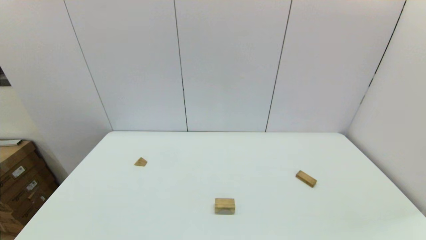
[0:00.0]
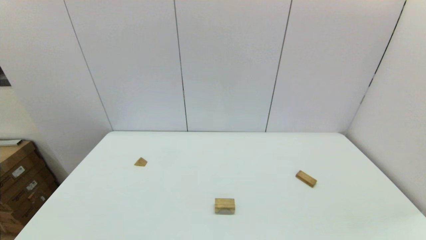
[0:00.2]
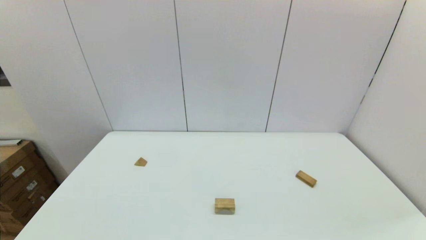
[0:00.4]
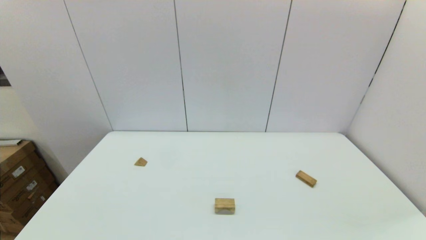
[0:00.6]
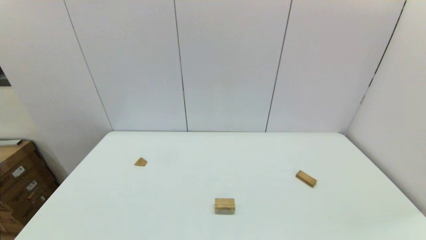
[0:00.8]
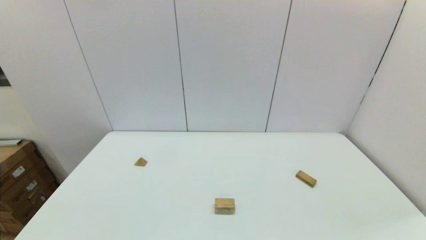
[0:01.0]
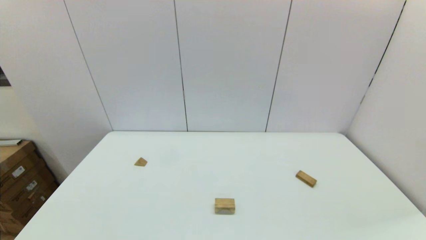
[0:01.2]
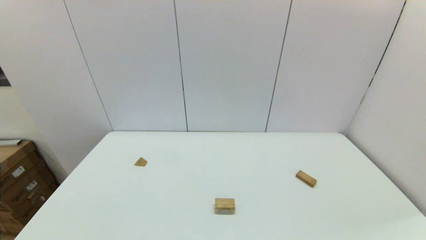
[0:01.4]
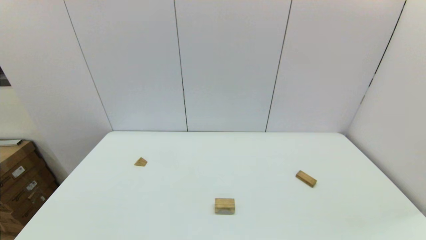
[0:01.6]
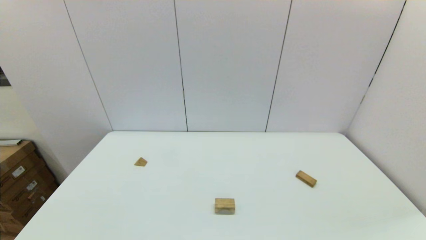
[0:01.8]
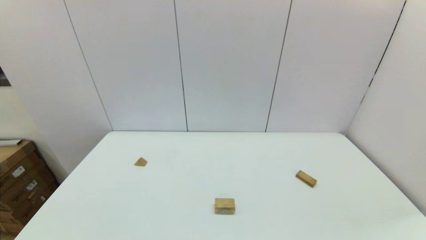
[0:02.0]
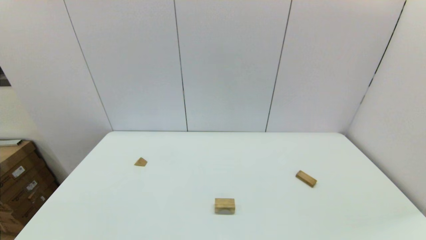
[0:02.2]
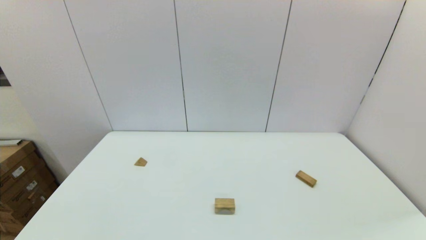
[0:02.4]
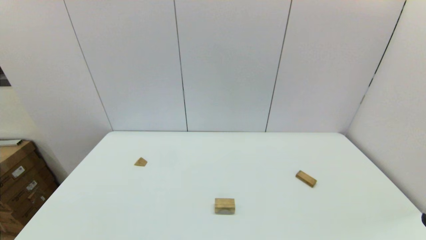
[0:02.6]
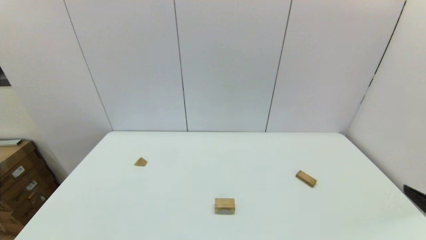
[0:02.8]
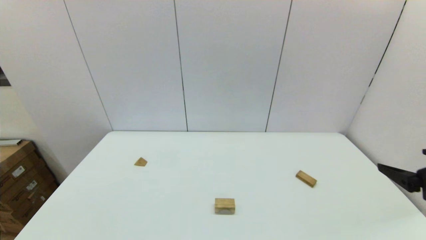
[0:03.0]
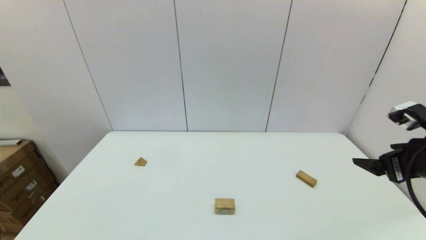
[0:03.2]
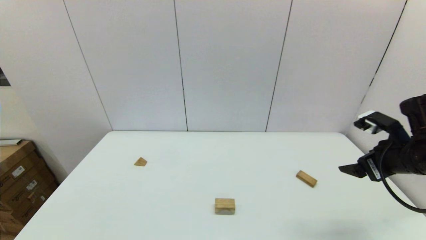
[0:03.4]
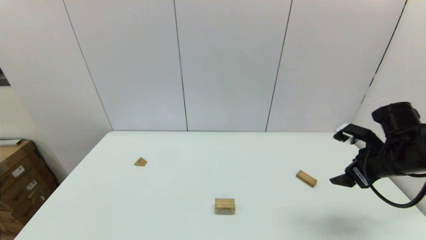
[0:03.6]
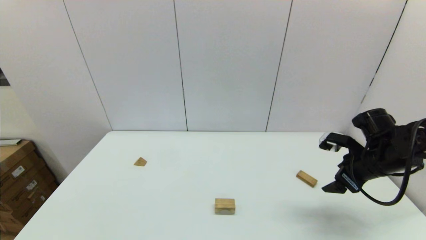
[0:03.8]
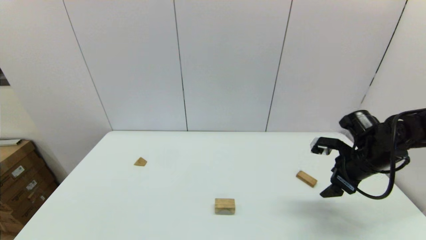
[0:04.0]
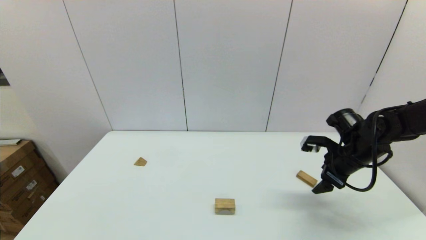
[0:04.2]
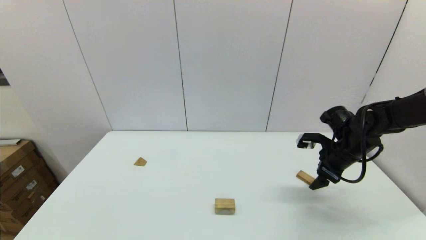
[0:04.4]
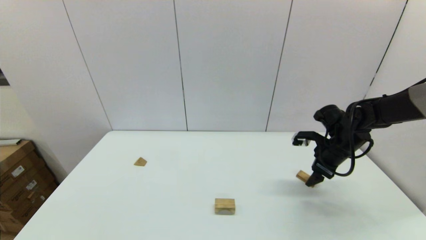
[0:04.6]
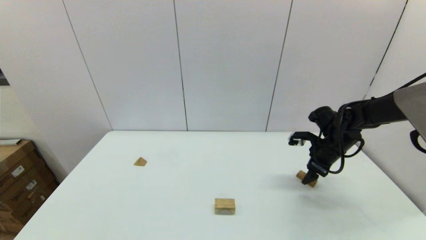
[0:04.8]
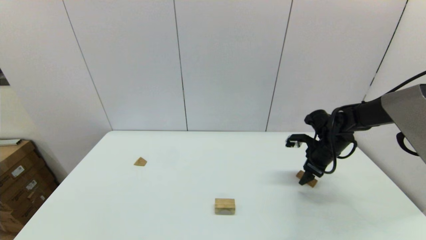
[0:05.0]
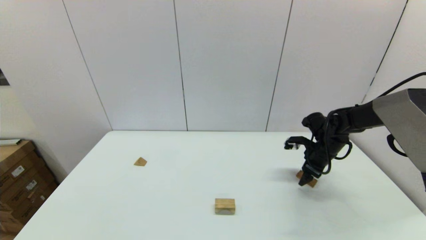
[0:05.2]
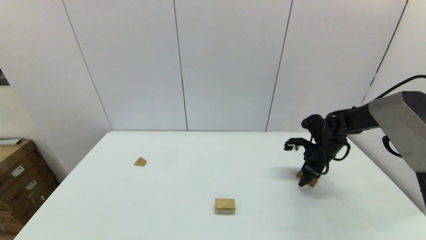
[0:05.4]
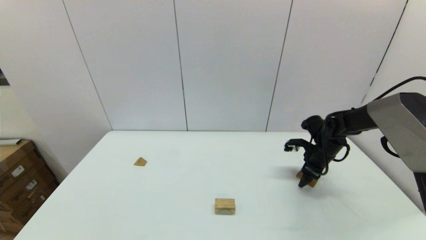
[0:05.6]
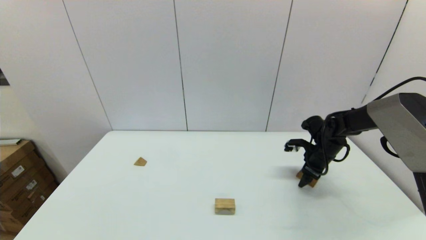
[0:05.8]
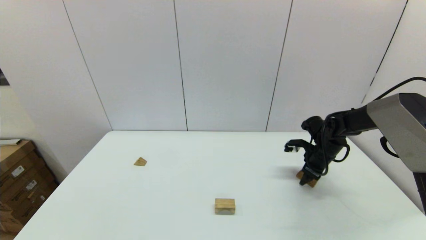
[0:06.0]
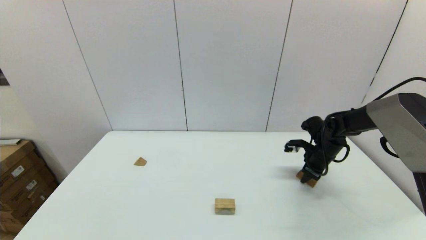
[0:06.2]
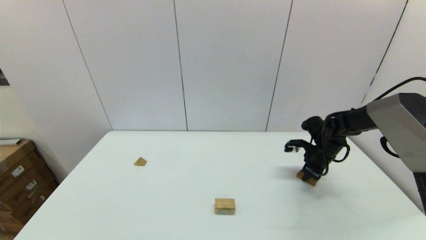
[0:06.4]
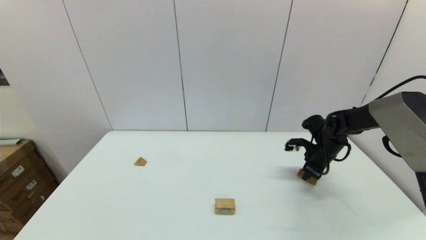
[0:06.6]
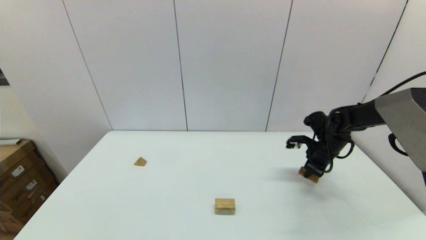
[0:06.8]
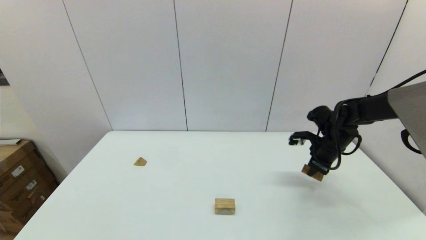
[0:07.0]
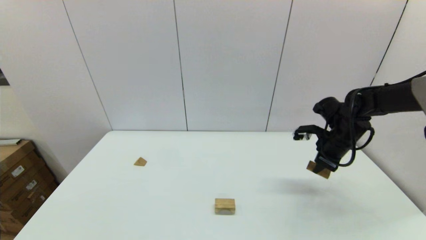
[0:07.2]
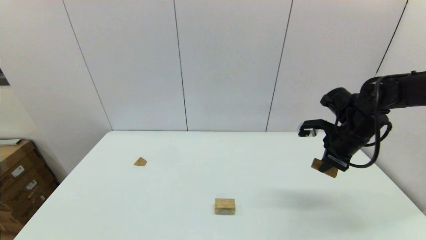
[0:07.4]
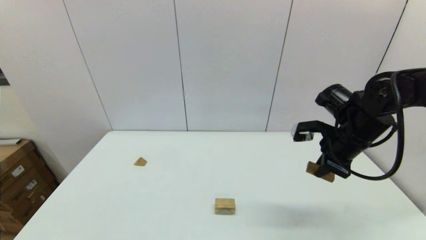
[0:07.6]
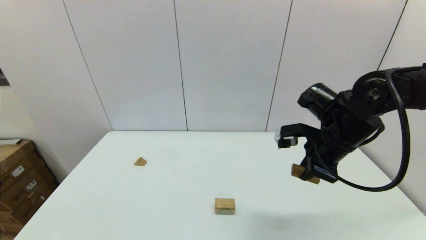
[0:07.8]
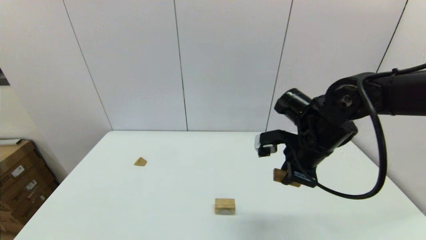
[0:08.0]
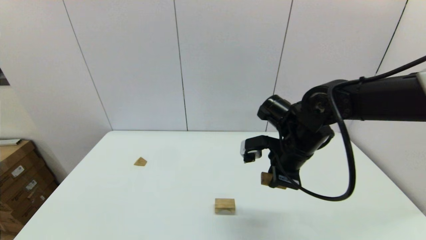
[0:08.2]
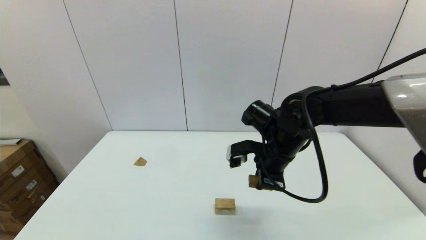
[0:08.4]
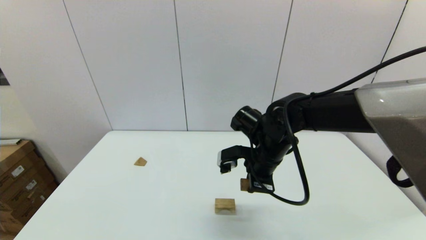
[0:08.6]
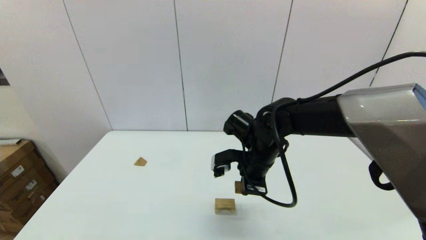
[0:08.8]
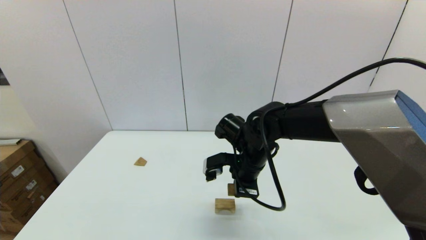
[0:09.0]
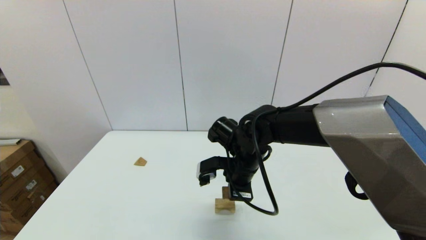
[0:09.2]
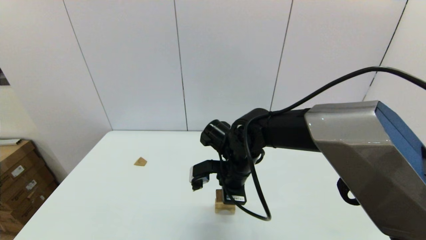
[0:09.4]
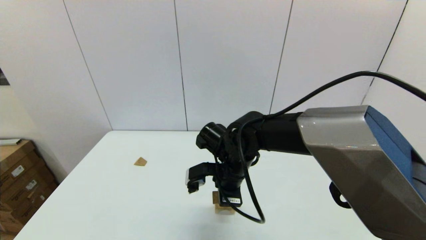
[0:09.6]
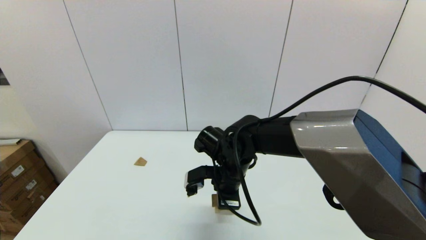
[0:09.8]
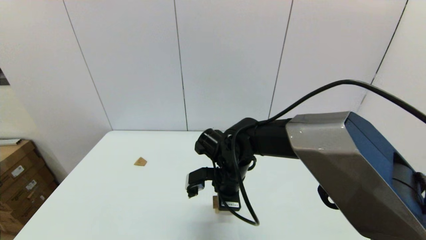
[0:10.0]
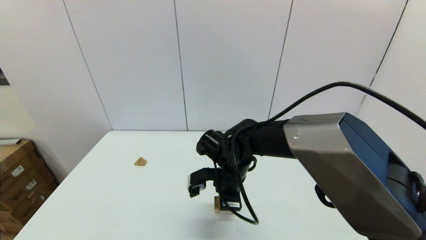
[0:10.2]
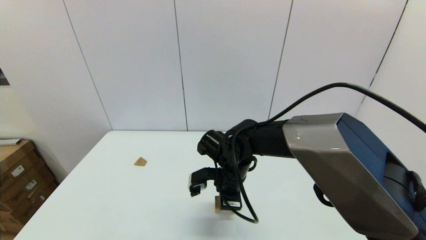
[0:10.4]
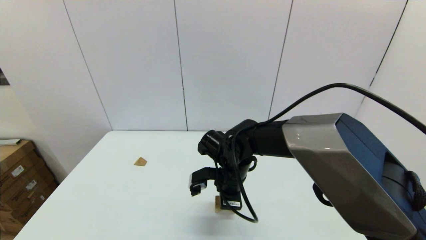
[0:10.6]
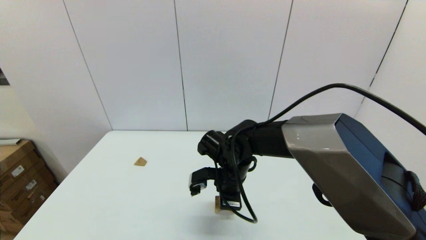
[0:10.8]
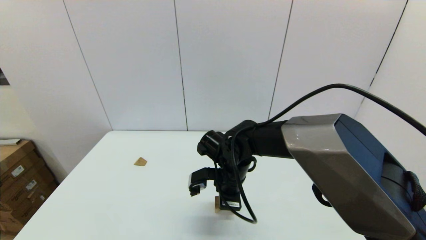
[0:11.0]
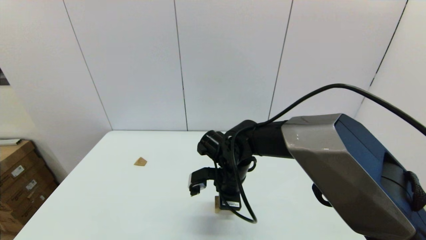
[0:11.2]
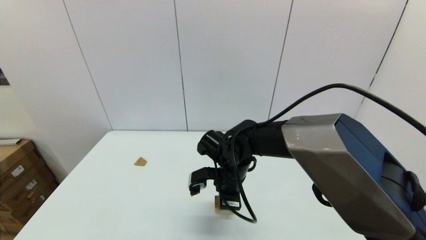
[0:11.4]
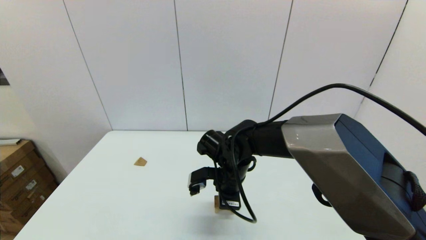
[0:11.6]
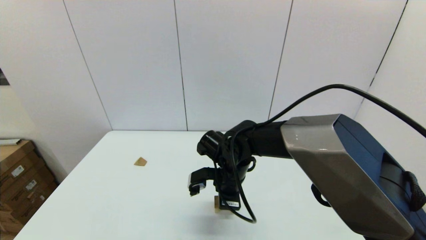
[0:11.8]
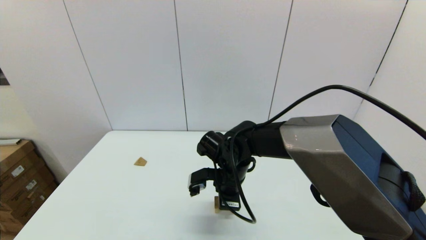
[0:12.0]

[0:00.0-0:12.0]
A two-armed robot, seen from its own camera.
Task of the whole recording: place the arched building blocks in the center of the table, set up the rectangular building blocks, and then set up the triangular building blocks.
Step, 0:00.0 to 0:06.2: Grasp the box-shaped block with the right gripper.
0:00.0 to 0:01.6: Both grippers stay about where they are.
0:01.6 to 0:03.0: The right gripper heads forward and upward, covering roughly 20 cm.
0:03.0 to 0:04.4: The right gripper shifts some 25 cm forward and downward.
0:04.4 to 0:06.0: The right gripper heads forward and downward, covering about 10 cm, and closes.
0:06.0 to 0:07.6: The right gripper moves upward and backward, about 20 cm, and closes up.
0:07.6 to 0:09.0: The right gripper moves to the left, some 20 cm.
0:09.0 to 0:10.4: The right gripper shifts by some 5 cm.
0:10.4 to 0:12.0: The two grippers keep their place.

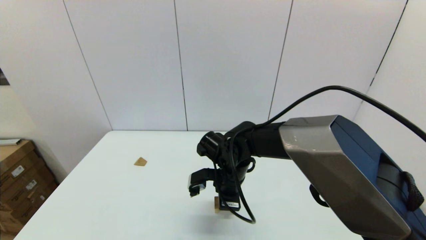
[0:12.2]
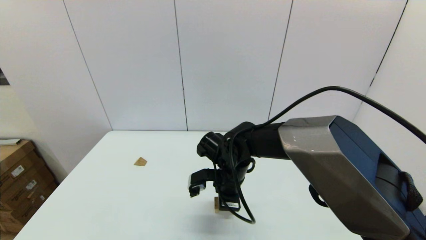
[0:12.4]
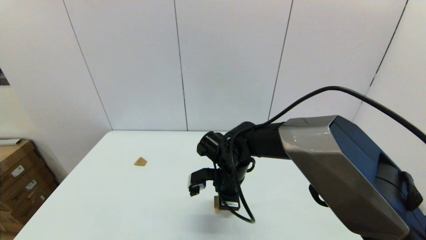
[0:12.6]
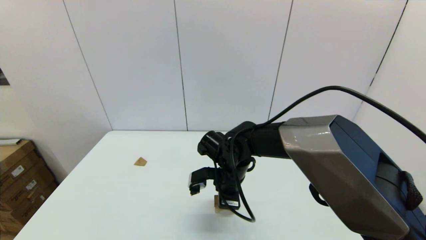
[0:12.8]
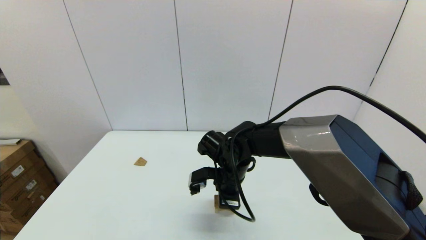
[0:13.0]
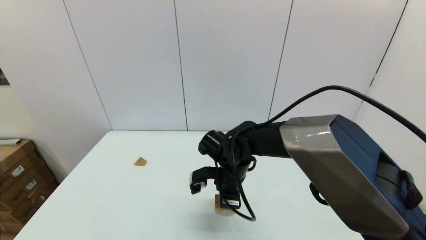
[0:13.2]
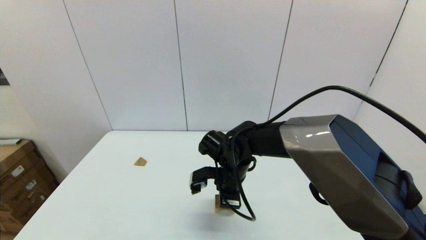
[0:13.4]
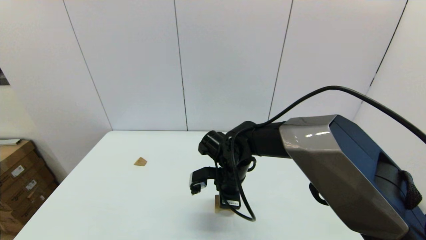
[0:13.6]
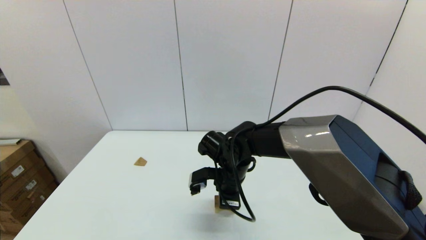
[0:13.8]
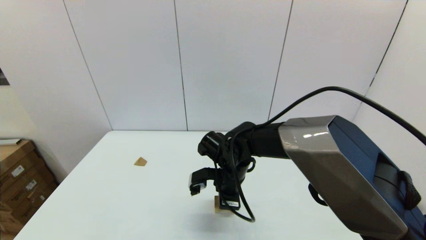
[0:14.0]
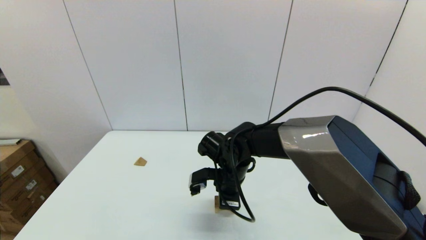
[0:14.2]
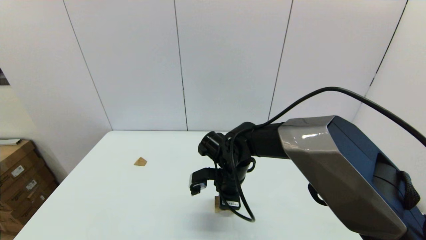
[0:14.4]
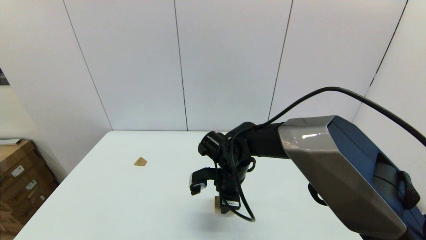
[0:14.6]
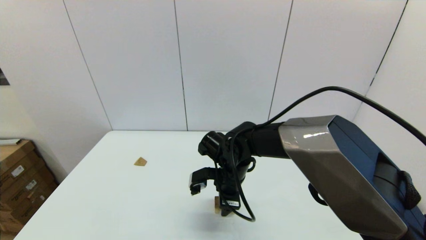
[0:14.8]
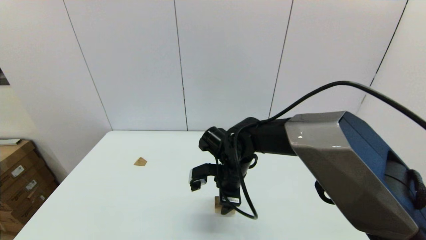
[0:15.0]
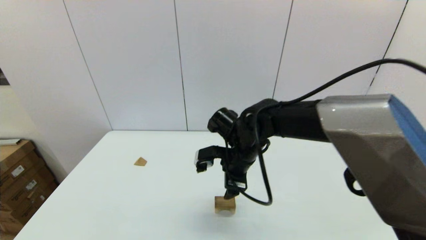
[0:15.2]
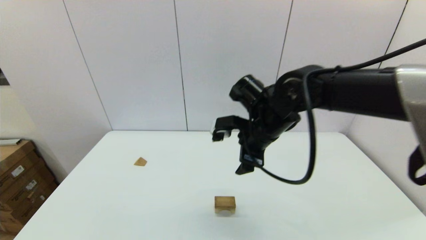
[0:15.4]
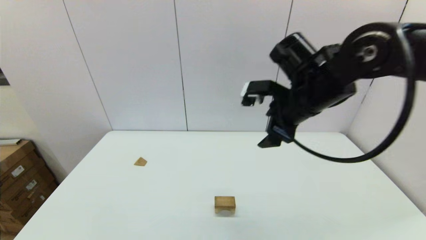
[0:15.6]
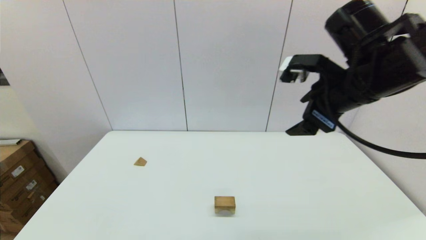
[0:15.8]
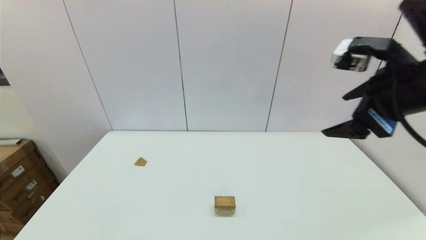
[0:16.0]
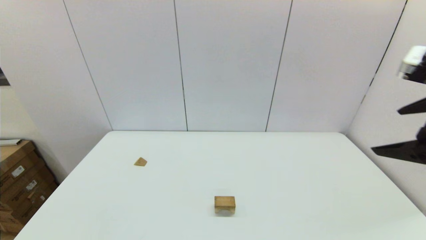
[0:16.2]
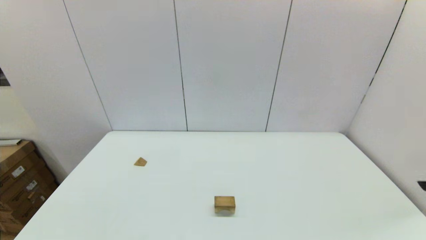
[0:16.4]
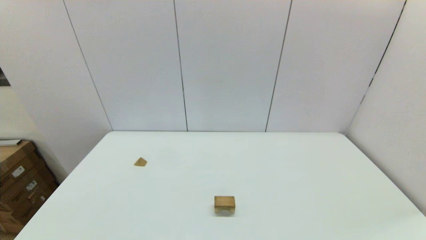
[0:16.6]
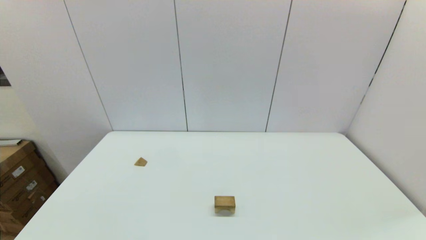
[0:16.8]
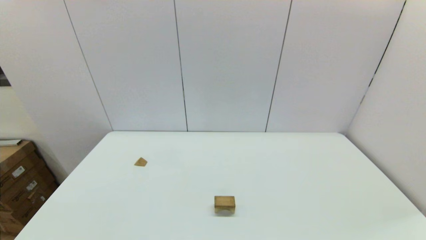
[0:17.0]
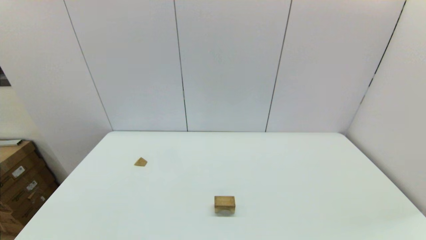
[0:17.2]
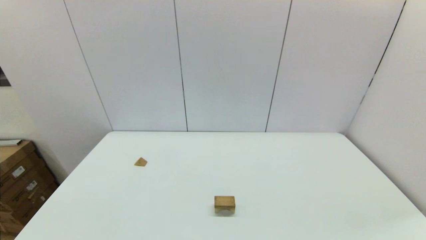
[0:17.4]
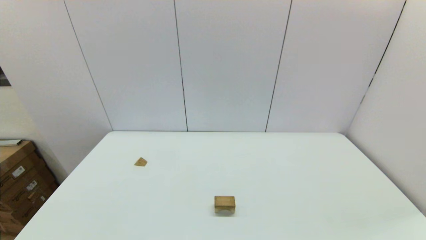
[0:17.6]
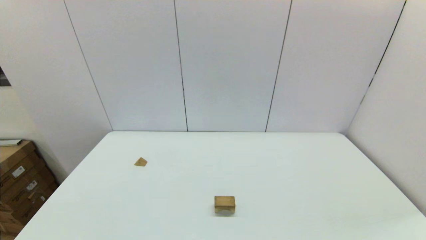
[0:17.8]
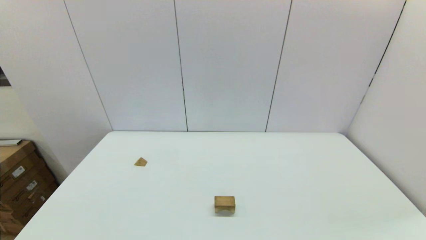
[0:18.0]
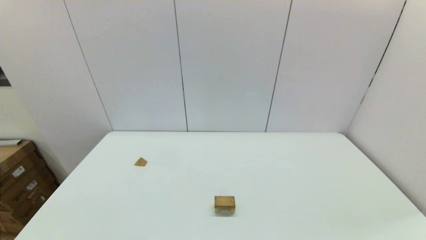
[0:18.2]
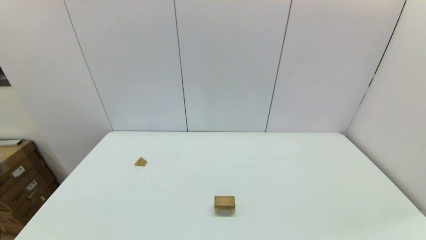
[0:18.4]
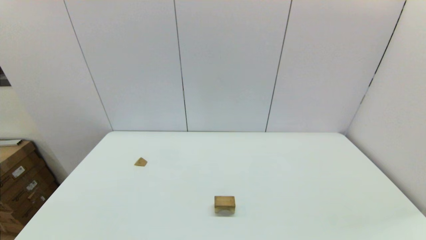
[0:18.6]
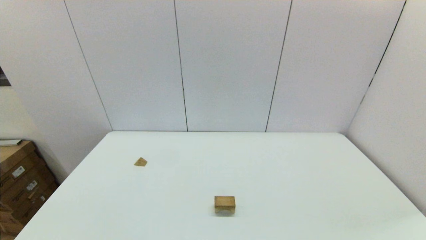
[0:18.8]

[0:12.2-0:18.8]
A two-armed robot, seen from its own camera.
Task of the whole recording: place the arched building blocks in the center of the table, set up the rectangular building blocks, and then set up the triangular building blocks.
Step, 0:12.2 to 0:14.8: Place the box-shaped block onto the arch-shaped block with the right gripper.
0:12.2 to 0:13.8: Both grippers stay put.
0:13.8 to 0:15.4: The right gripper shifts roughly 15 cm upward and to the right, and opens its fingers.
0:15.4 to 0:17.2: The right gripper shifts some 40 cm backward and to the right.
